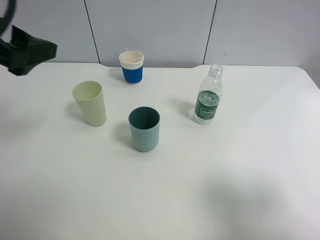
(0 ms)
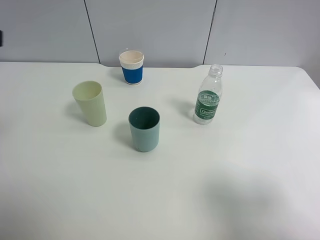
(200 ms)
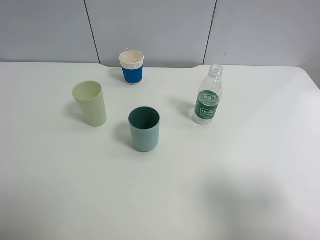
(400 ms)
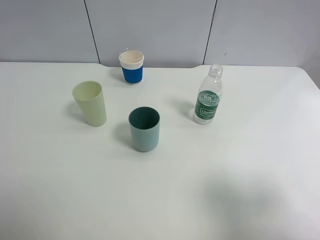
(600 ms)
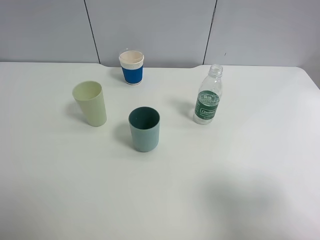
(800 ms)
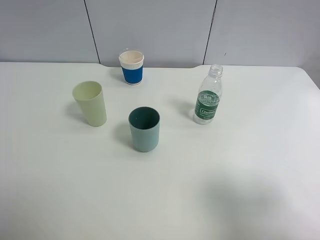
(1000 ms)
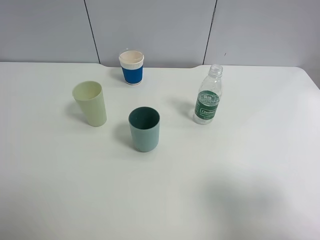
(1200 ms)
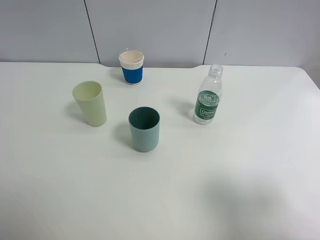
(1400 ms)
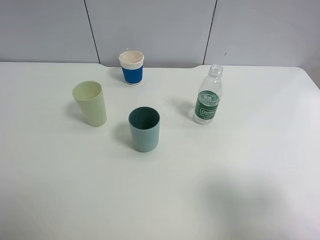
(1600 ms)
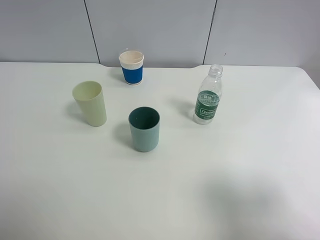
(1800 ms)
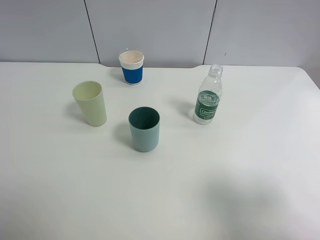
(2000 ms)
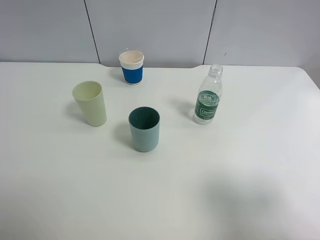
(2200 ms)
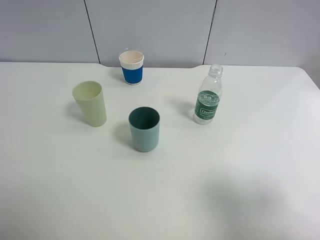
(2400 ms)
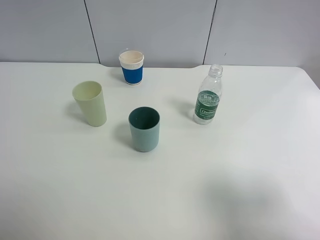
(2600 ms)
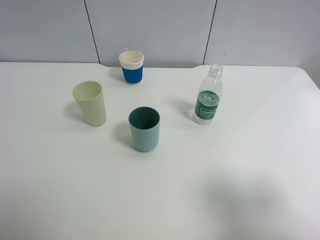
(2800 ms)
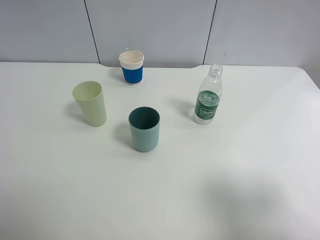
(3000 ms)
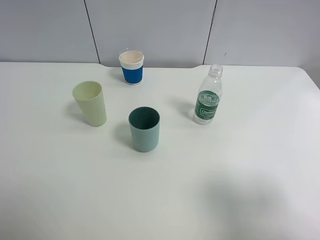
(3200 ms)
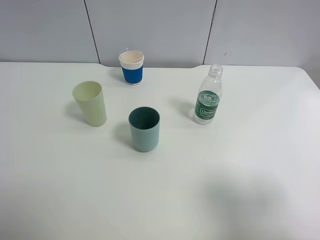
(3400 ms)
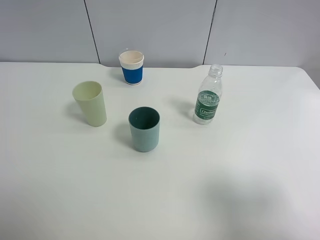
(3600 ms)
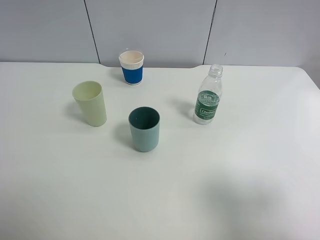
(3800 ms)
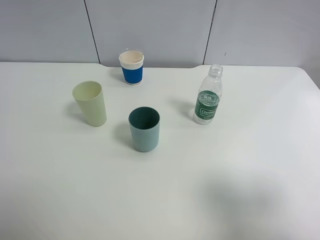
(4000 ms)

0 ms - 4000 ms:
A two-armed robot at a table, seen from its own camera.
Task of the whole recording: use a clamp to hold the bottle of the drink, pour the beverage into a random cup, then clamp the cup containing the drink and pour the drink into another random cup.
0 ms - 1400 ms: The left gripper heads backward, covering approximately 20 cm.
1400 ms - 4000 ms: Both grippers stay about where they are.

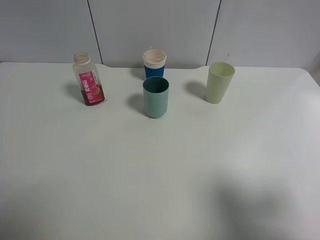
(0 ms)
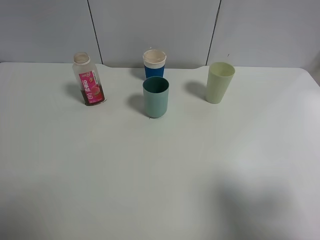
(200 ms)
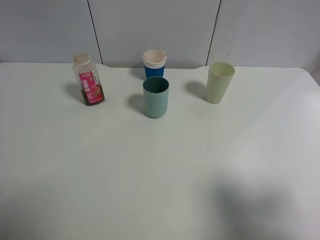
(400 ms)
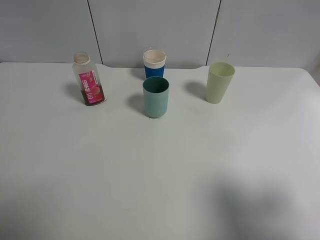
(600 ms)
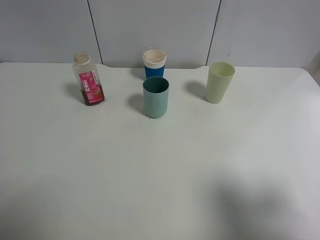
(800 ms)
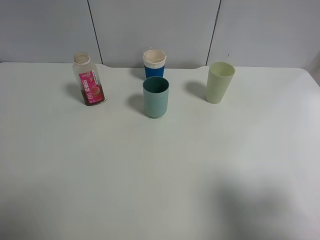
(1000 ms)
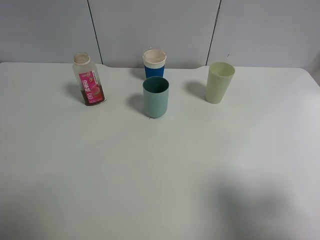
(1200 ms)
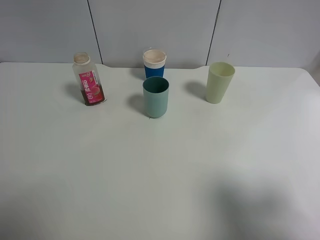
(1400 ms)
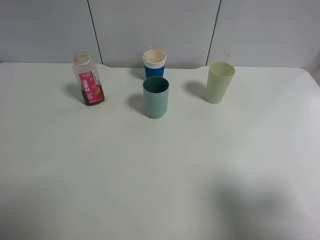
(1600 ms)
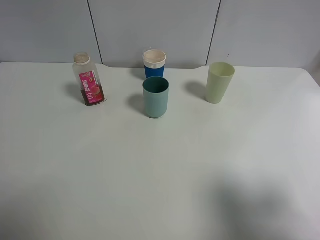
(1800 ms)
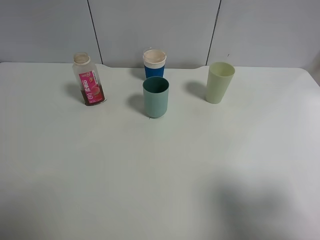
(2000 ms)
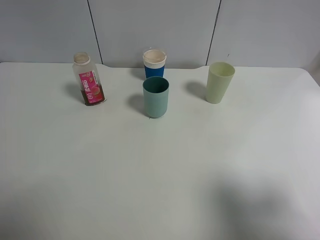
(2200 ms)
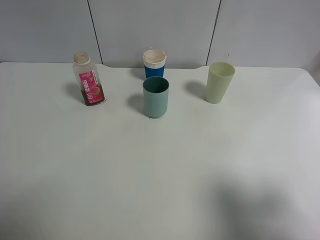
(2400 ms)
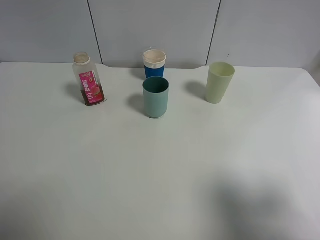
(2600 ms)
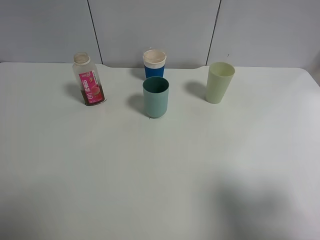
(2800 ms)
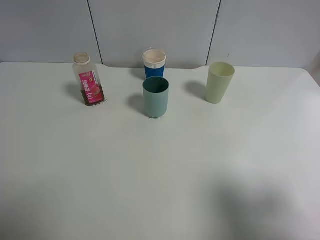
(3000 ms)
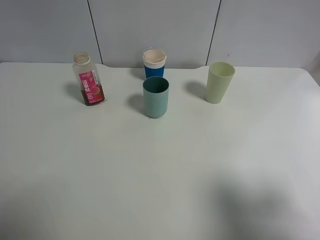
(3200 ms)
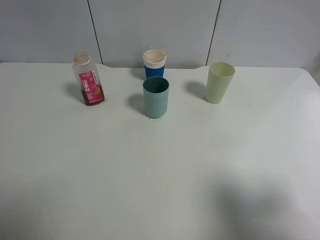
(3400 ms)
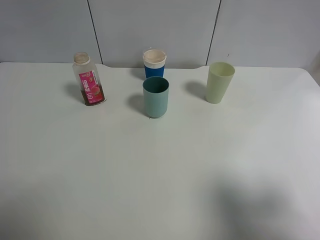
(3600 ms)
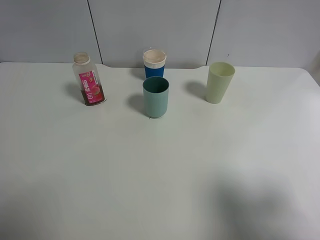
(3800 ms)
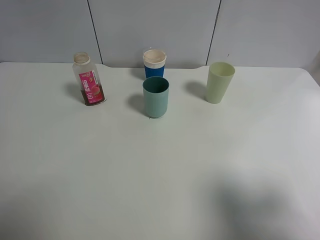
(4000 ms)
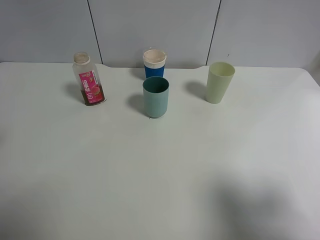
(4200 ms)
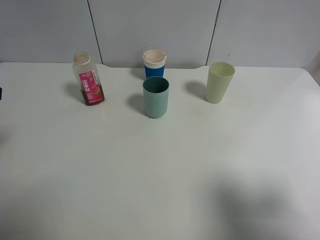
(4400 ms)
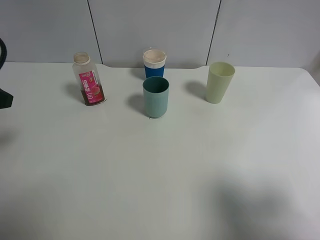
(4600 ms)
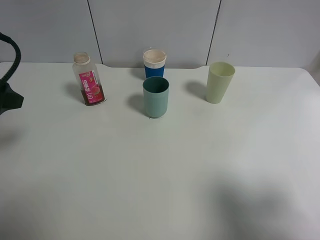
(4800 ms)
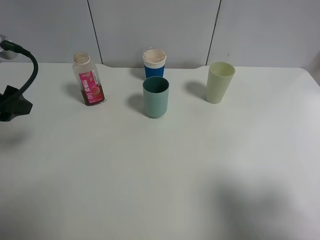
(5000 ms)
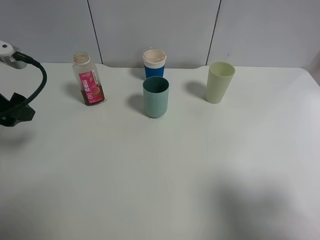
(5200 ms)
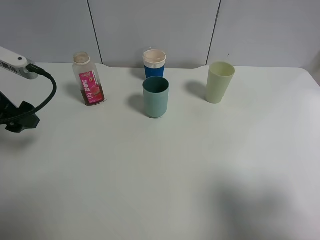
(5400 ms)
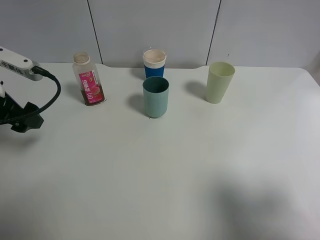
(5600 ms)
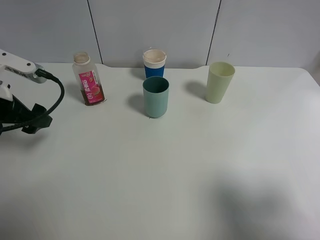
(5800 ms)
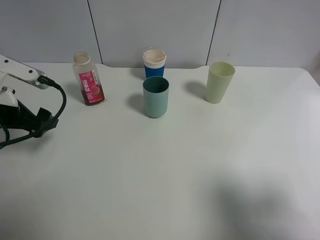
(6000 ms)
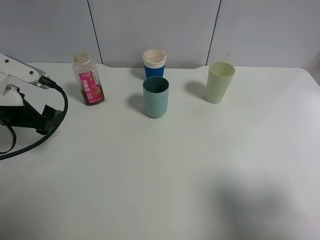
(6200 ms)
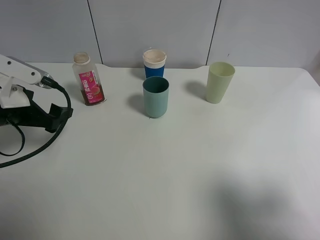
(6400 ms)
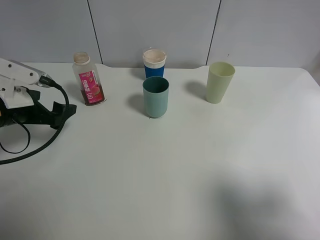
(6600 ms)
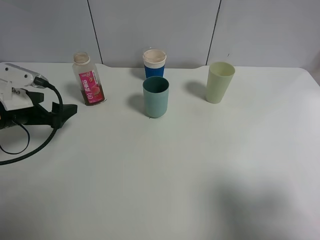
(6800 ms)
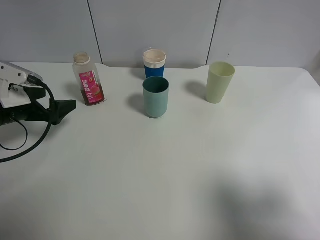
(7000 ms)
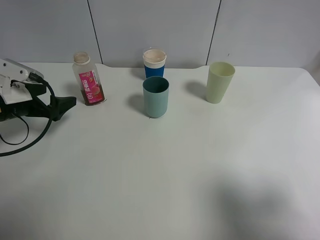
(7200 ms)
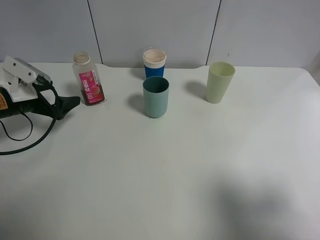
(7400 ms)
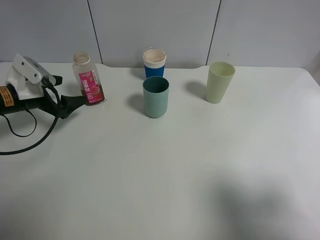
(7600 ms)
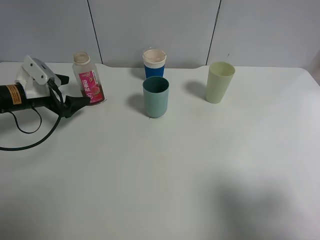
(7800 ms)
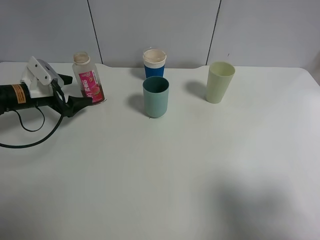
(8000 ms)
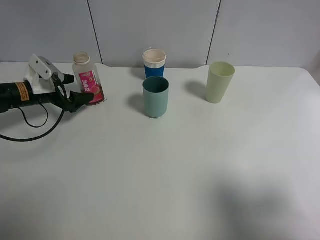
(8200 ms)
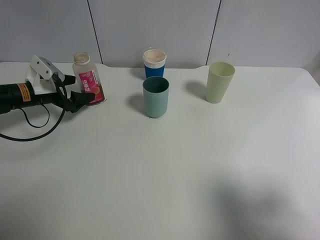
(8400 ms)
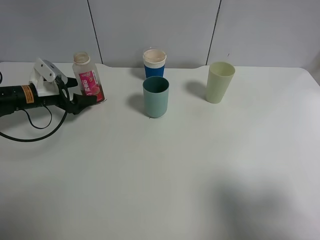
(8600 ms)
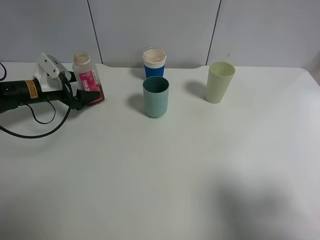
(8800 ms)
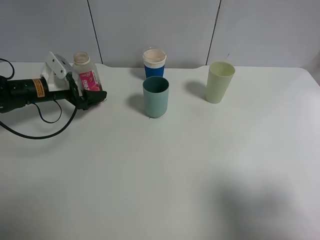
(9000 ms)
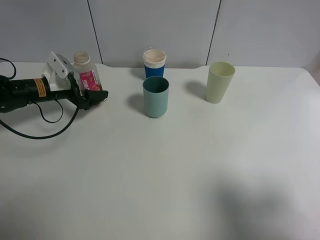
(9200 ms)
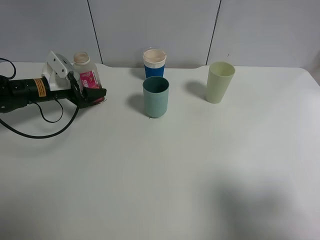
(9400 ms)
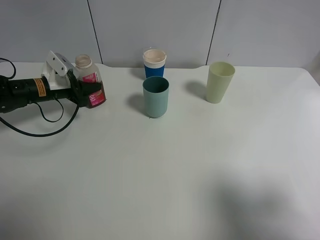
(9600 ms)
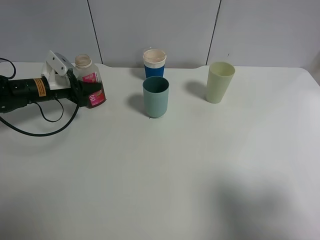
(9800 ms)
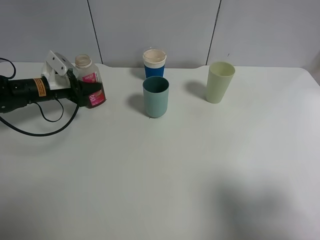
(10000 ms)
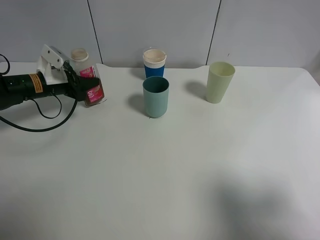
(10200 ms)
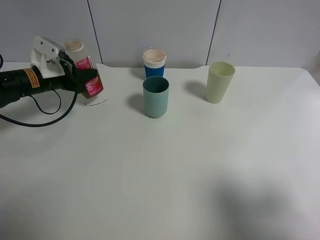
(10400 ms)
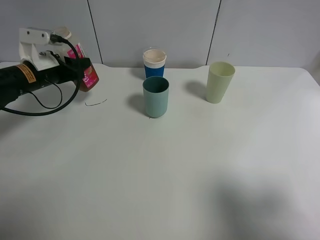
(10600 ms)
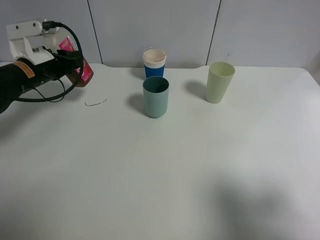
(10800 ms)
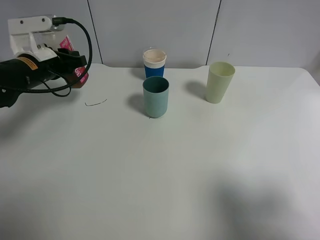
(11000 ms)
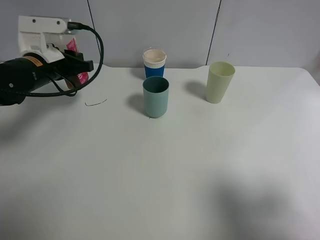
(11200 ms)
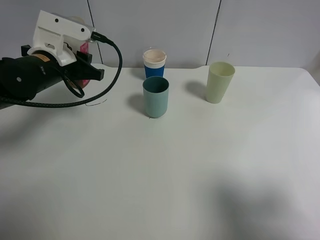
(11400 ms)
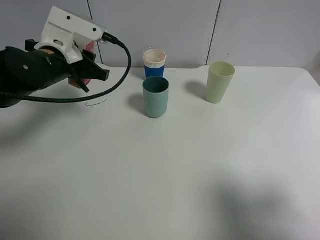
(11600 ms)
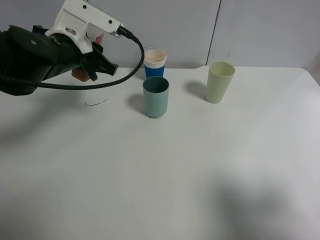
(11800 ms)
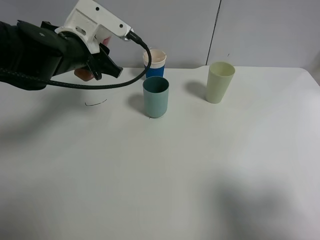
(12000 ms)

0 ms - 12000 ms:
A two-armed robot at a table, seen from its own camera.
Task of the whole recording: use a clamp to hold the bottle of the drink, pour the beverage into a random cup, then clamp the cup containing the drink and pour the drink into another random cup.
Step, 0 ms - 10400 ms: Pick up the drink bottle with left gripper.
0 ms - 1600 ms: Both grippers stay put.
4400 ms - 6000 ms: The left gripper goes approximately 10 cm downward and forward.
6000 ms - 7600 ms: The left gripper heads forward and downward, covering roughly 10 cm.
7600 ms - 9000 ms: The left gripper heads forward, covering some 5 cm.
9000 ms - 10400 ms: The left gripper closes up.
10400 ms - 12000 ms: The left gripper goes roughly 15 cm to the right and upward.

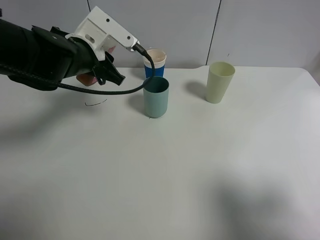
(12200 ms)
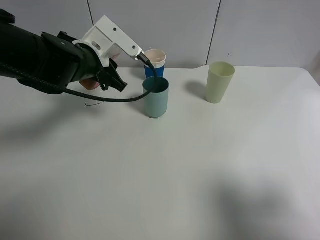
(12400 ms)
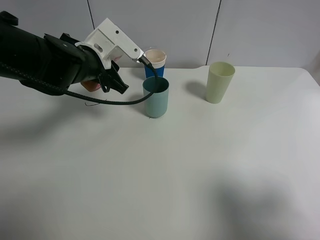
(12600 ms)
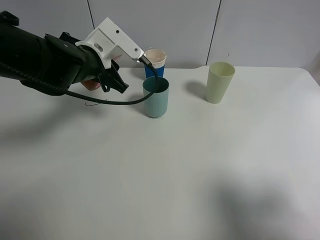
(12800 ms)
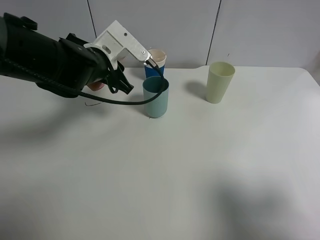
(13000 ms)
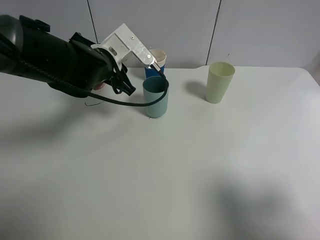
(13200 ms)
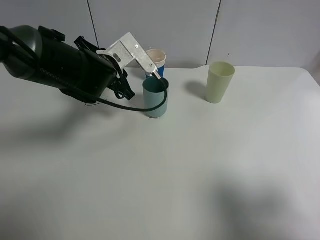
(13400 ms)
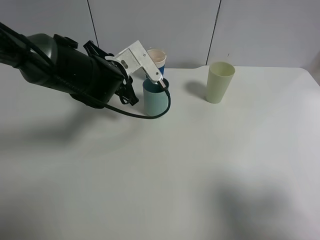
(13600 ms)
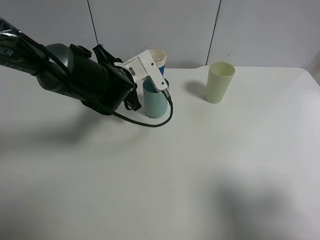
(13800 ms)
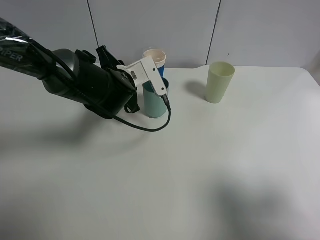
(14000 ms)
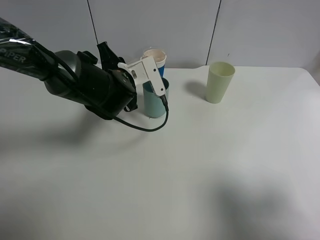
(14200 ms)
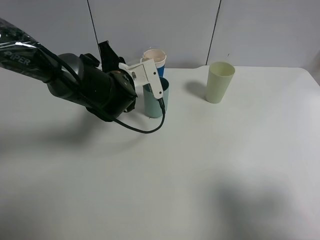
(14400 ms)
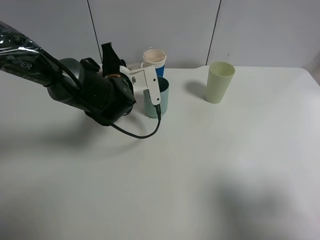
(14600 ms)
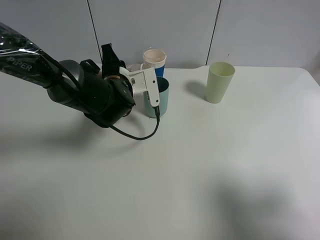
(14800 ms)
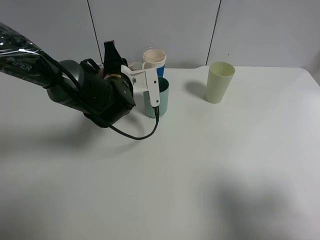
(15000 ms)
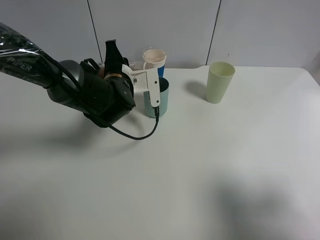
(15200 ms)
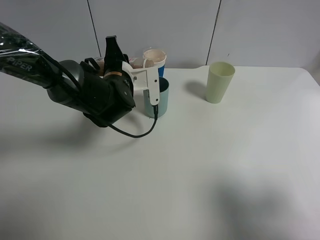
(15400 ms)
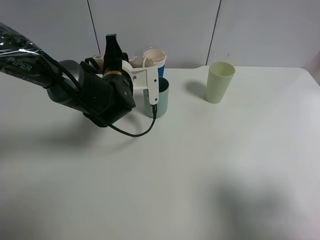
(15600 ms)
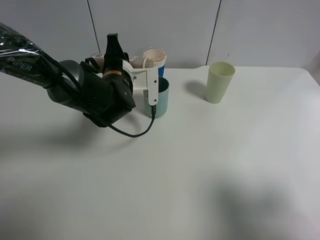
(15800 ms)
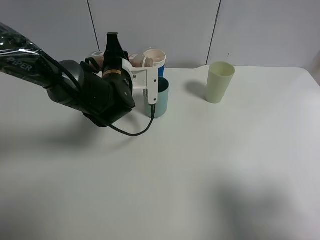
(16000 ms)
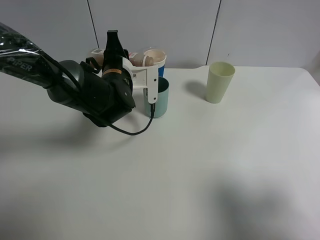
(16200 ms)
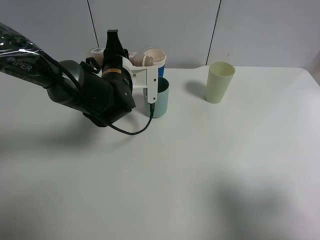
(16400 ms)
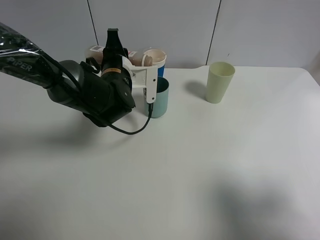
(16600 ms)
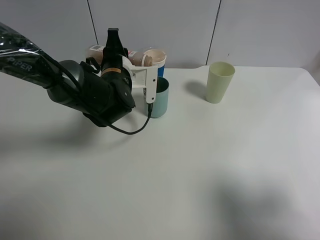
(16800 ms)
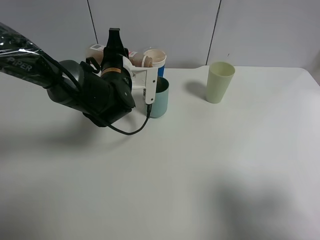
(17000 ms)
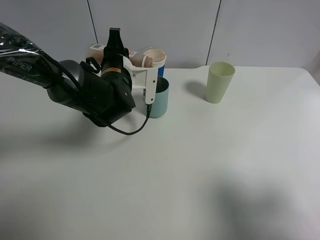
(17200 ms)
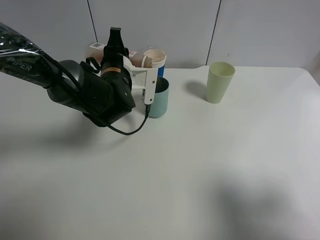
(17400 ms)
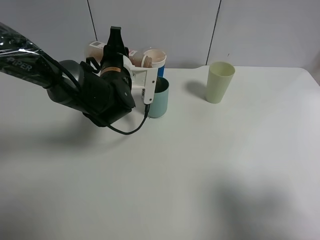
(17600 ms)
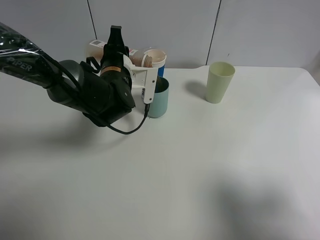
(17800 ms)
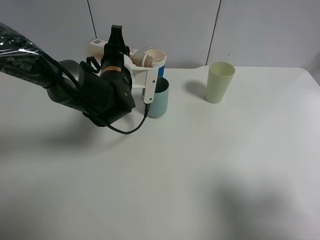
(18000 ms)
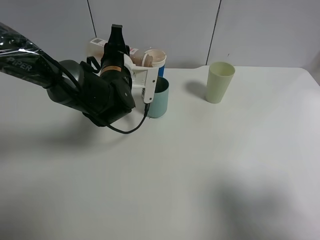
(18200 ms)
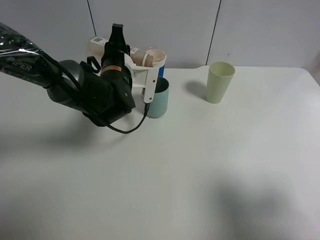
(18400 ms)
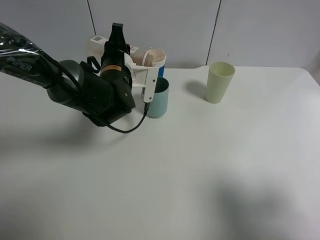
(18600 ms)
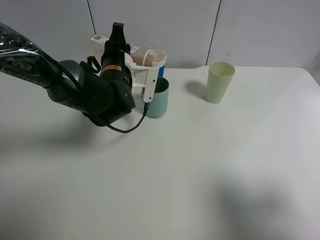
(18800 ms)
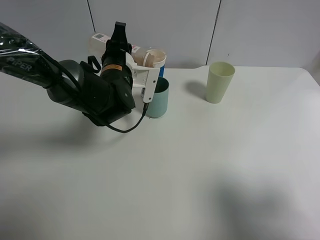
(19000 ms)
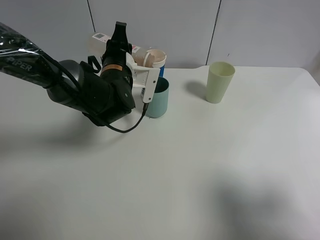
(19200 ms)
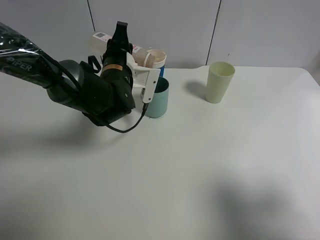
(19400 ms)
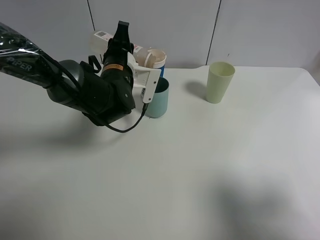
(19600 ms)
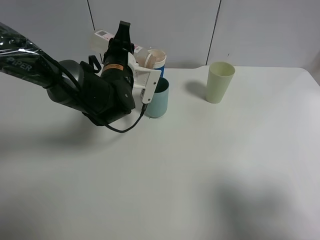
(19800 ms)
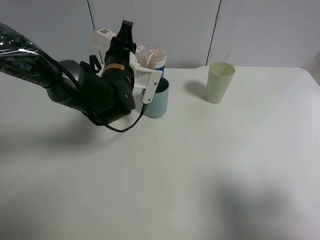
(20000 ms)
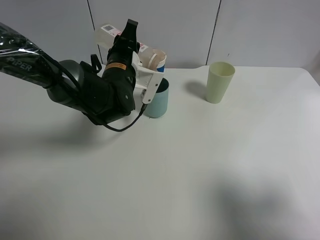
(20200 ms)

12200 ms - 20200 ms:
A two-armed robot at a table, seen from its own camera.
Task of the whole recording: use a clamp to hold the bottle of the drink, pour the beverage into a random cup, then clamp the cup containing the drink and pour the drink into another random cup.
12200 ms - 13800 ms: The left gripper is displaced downward and to the right by some 10 cm.
15400 ms - 18600 ms: The grippers stay close to where they were, moving slightly.
18600 ms - 20200 ms: The grippers move only a little.
